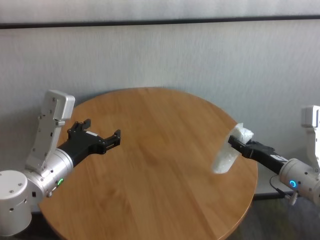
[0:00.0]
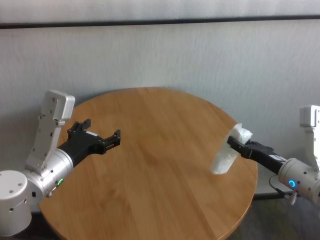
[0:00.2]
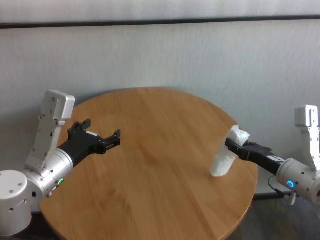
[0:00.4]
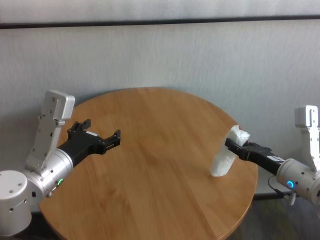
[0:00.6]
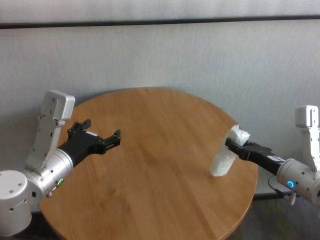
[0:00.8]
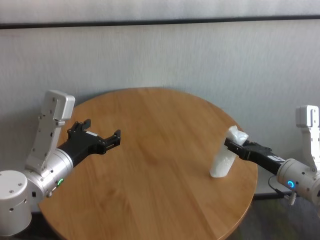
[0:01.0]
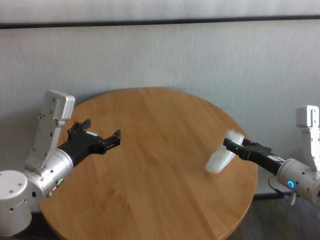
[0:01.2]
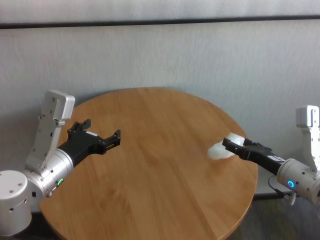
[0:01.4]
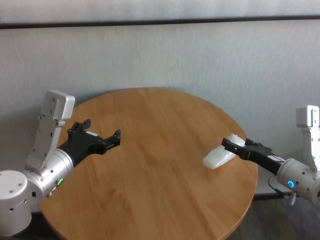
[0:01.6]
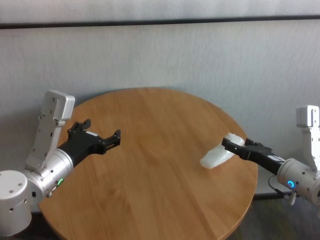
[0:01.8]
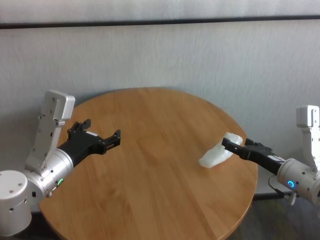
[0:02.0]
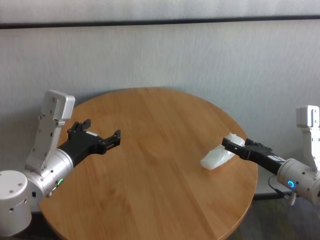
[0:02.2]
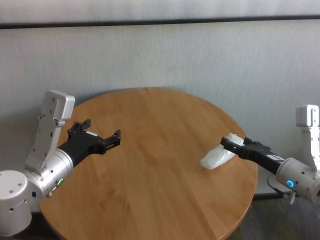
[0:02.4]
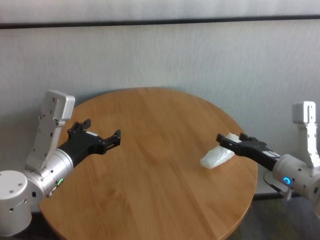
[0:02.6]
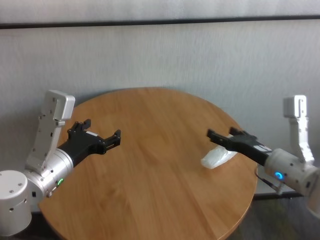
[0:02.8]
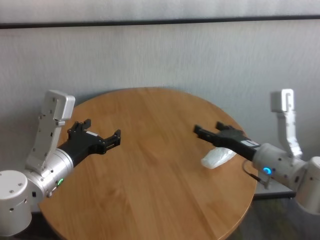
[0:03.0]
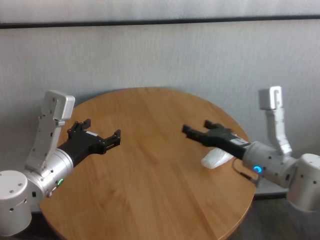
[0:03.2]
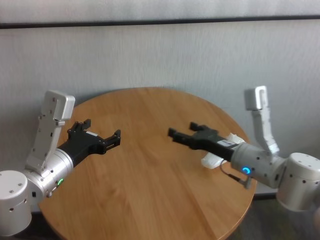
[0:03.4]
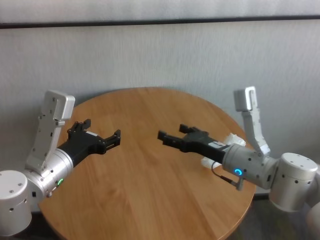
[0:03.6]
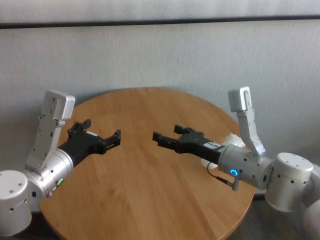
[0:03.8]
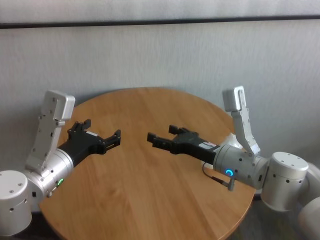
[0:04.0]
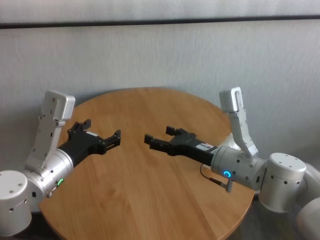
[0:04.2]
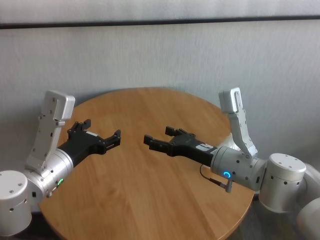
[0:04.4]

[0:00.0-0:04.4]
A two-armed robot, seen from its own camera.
Task of the whole recording: One hand took the sandbag from the other hand and placed it on the table.
Step, 0:00.0 to 0:02.2: Place the paper ball on the table with right gripper.
